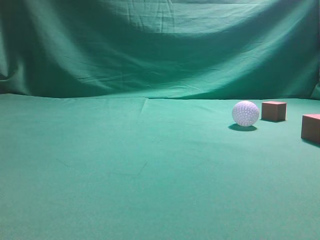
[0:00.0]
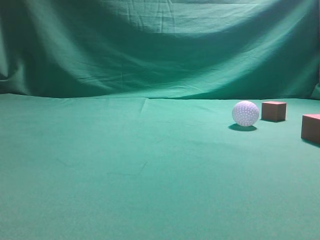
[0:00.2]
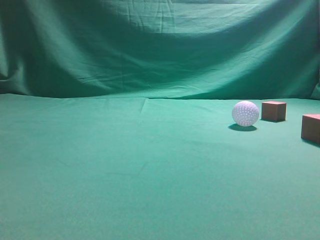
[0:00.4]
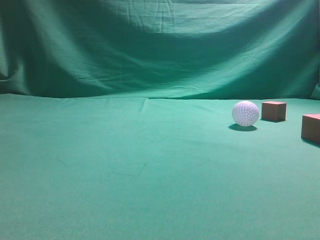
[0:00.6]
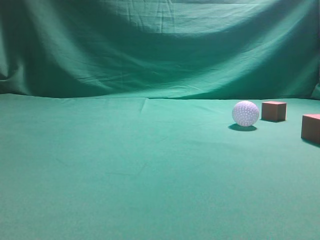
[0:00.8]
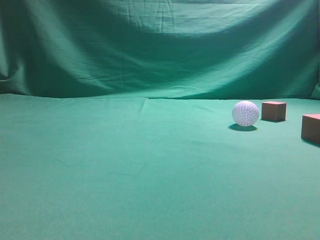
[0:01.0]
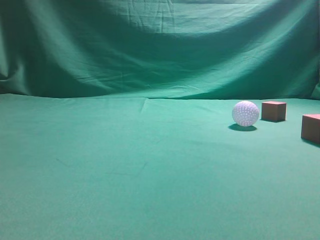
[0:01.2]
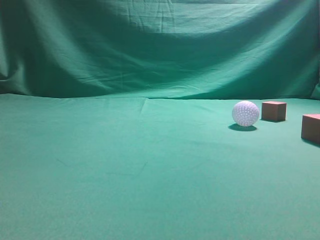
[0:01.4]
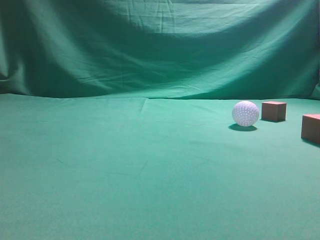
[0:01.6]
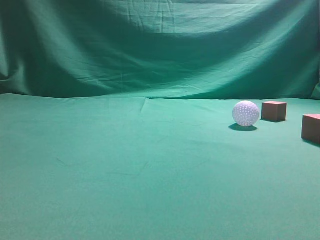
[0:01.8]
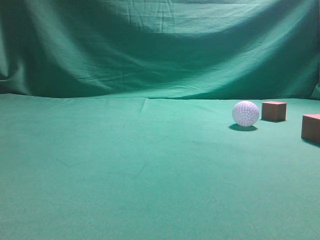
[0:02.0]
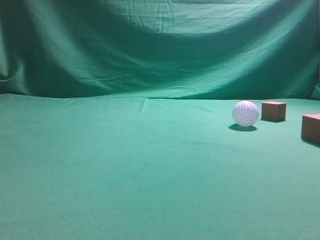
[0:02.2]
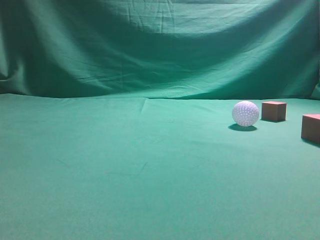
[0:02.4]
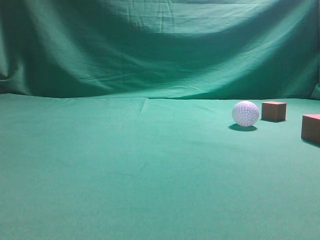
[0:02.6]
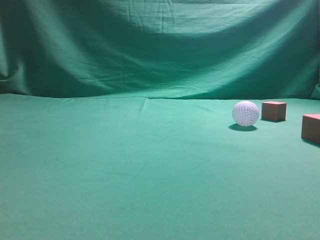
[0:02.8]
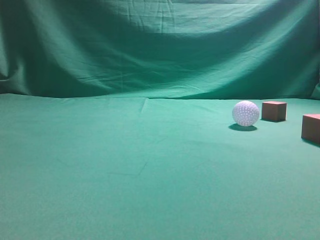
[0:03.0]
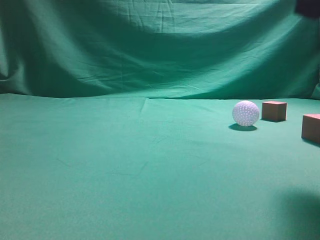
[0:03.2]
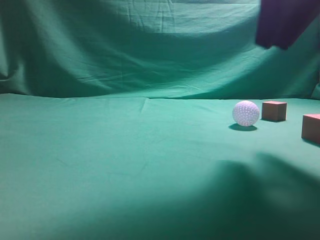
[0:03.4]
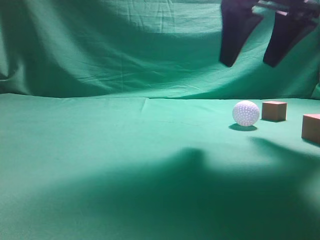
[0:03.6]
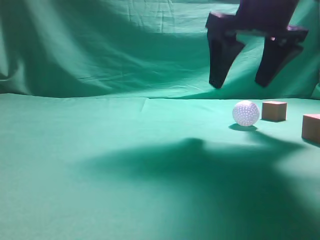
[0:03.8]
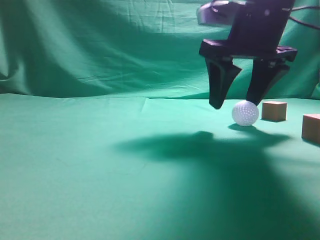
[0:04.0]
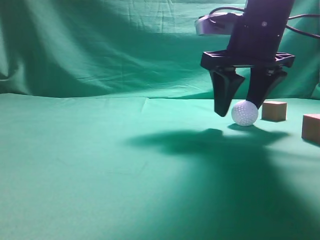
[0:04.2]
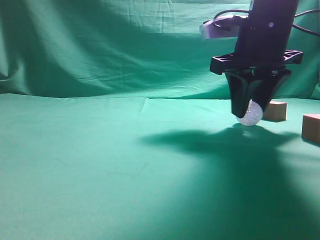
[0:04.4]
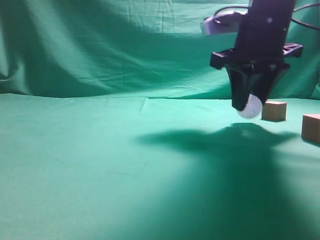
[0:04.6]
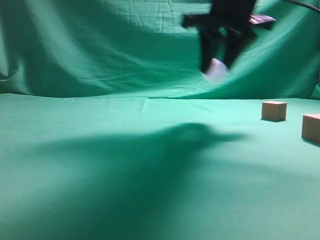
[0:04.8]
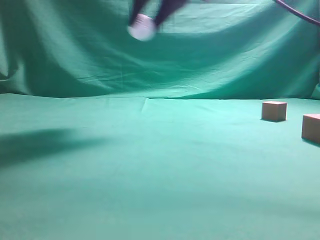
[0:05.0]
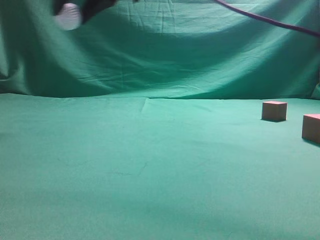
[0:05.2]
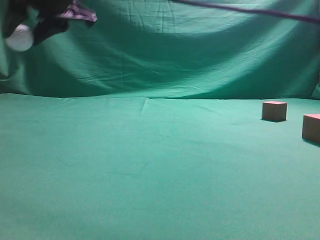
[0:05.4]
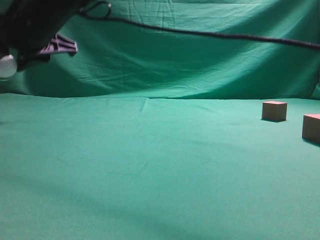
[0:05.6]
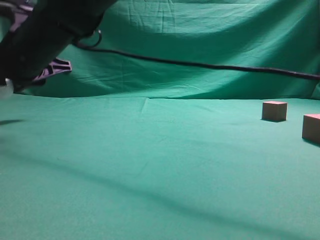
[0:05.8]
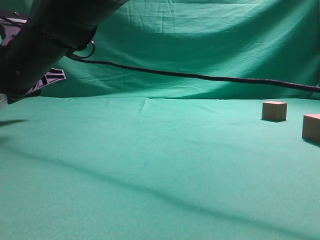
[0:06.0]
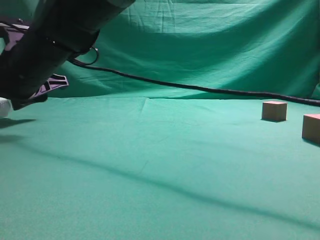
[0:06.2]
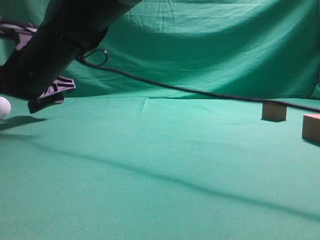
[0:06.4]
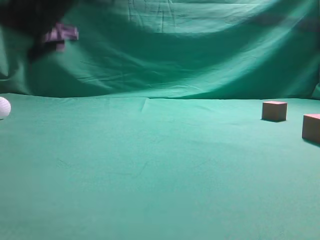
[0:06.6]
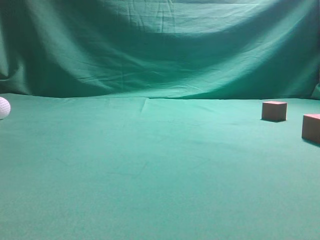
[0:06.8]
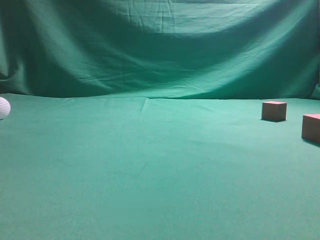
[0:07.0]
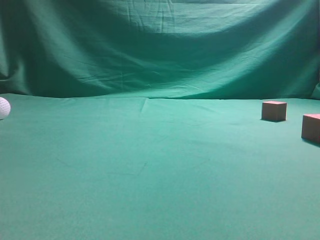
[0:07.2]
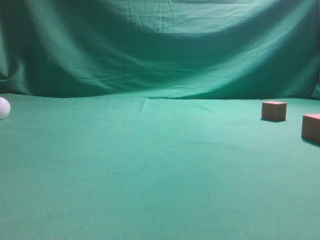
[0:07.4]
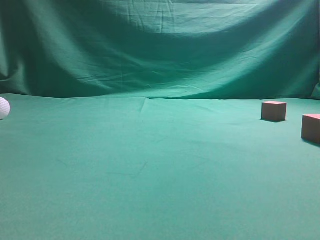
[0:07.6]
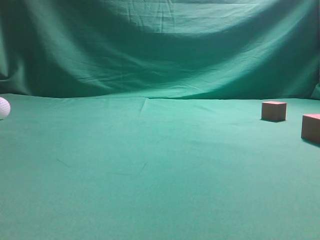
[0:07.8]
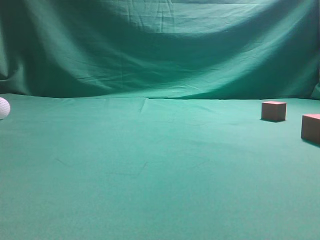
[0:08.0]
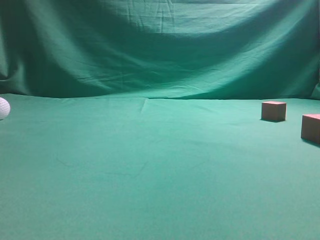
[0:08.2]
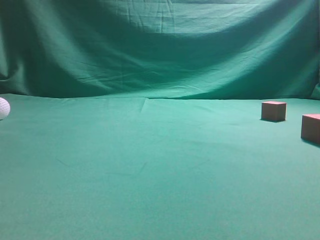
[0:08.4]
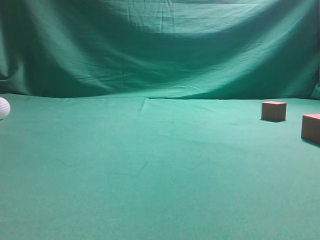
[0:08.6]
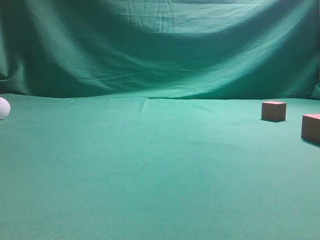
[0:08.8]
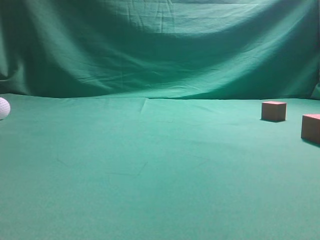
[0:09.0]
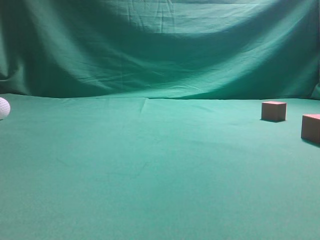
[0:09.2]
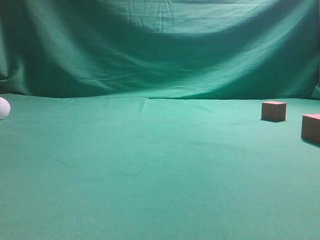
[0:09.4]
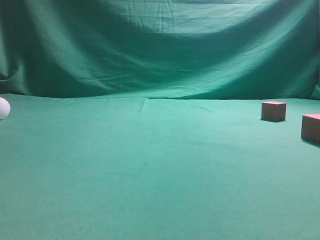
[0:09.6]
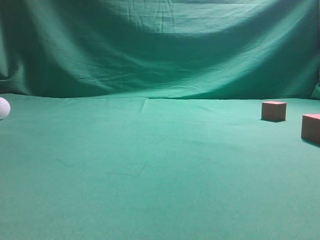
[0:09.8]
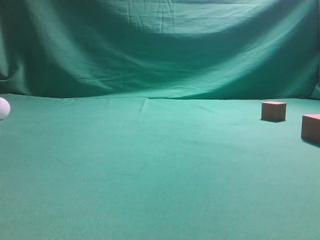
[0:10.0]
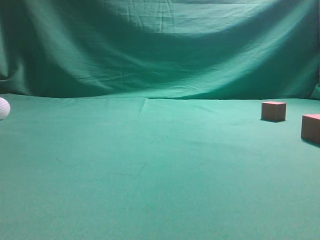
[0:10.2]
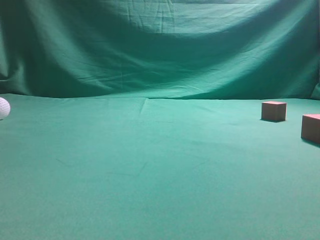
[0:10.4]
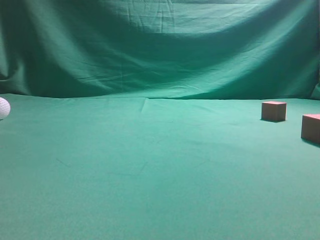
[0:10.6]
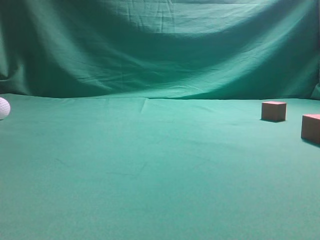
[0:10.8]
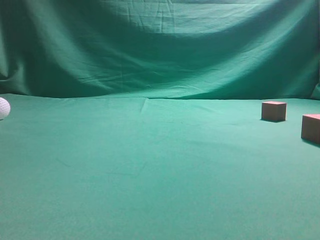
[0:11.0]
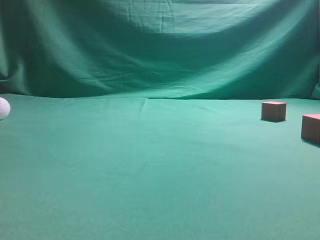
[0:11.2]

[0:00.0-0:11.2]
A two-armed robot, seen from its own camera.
Step, 0:00.0 to 0:04.8: Grasp the spherical object on the right side.
0:01.6 to 0:03.2: The right gripper shifts approximately 20 cm forward, to the left and upward.
0:03.2 to 0:04.8: The right gripper moves forward and to the left, roughly 15 cm, and opens.
0:04.8 to 0:06.4: The right gripper travels to the left by some 25 cm, and opens up.
0:06.4 to 0:08.0: The right gripper shifts about 60 cm to the right, upward and backward, and closes its fingers.
